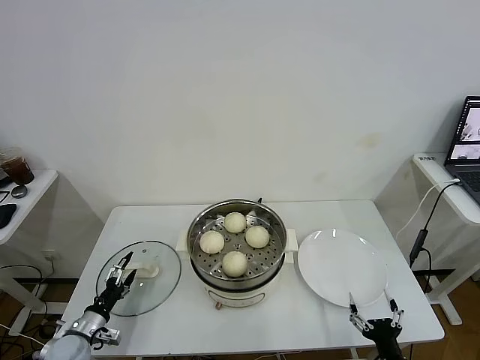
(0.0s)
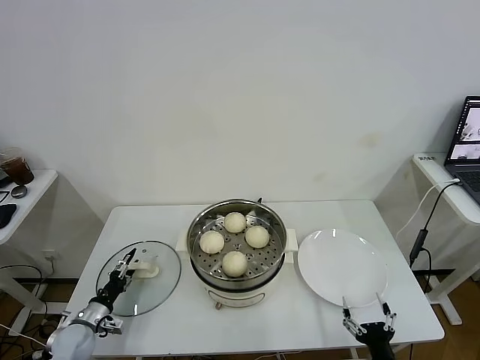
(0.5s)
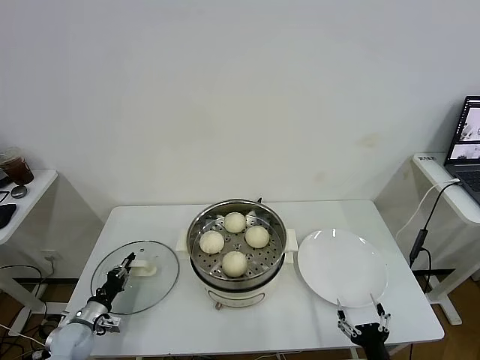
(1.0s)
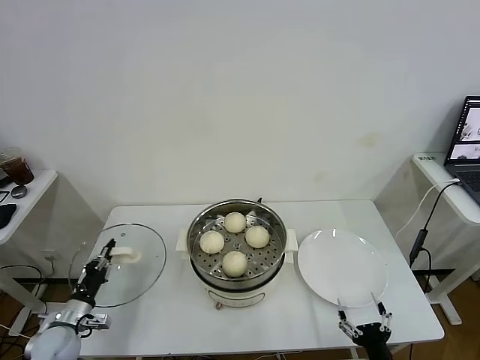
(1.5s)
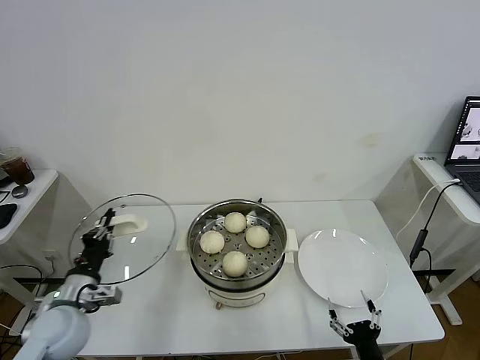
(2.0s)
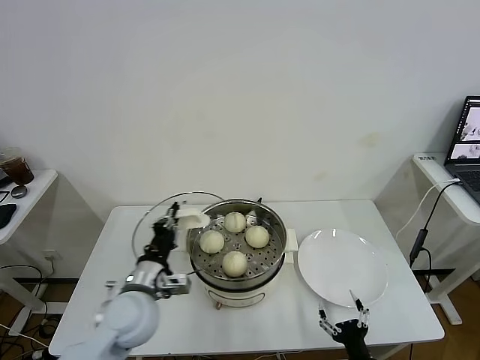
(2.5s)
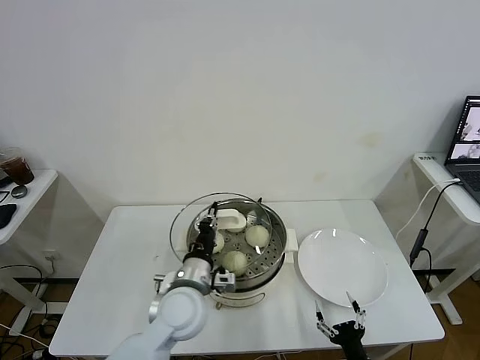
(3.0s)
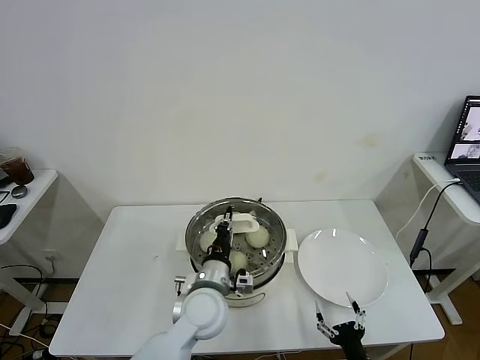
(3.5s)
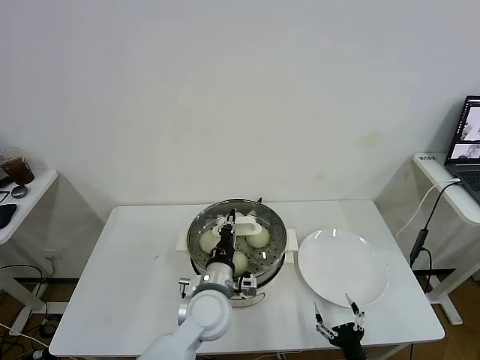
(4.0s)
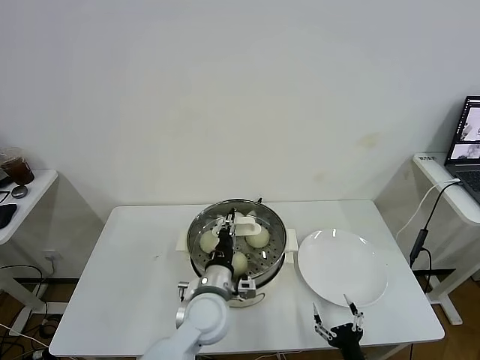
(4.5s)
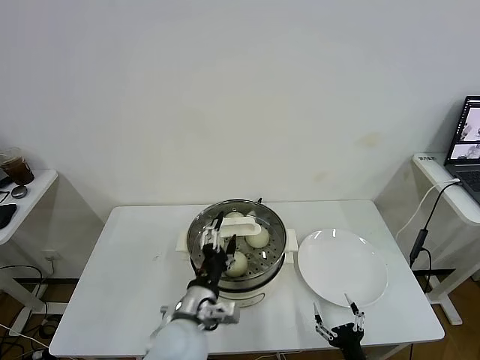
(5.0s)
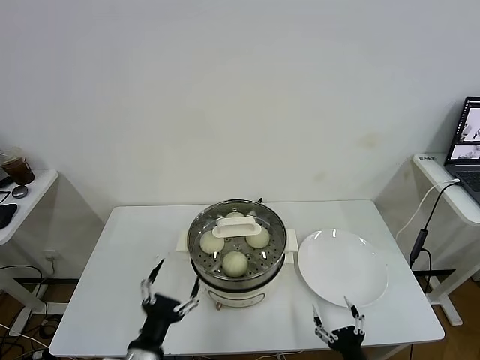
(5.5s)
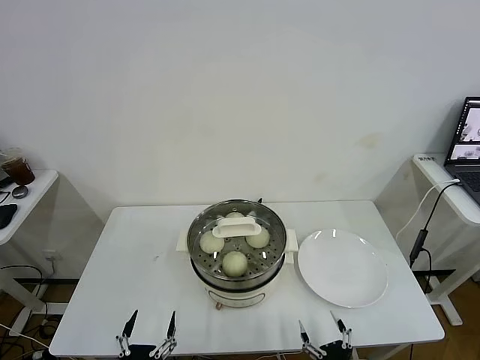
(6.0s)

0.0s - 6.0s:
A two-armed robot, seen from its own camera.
Task of the whole recording: take steamed baozi put them in steamer.
Step, 1.5s - 4.5s: Place the pot lid on the steamer with left gripper.
0.0s - 2.0s: The left gripper shifts approximately 15 cm upward, and closes its fingers.
2.0s - 4.0s: The left gripper goes roughly 30 cm to the right.
4.0s - 6.0s: The left gripper goes about 30 cm backward and to the left, and opens its fingers. The right gripper moves about 5 cm.

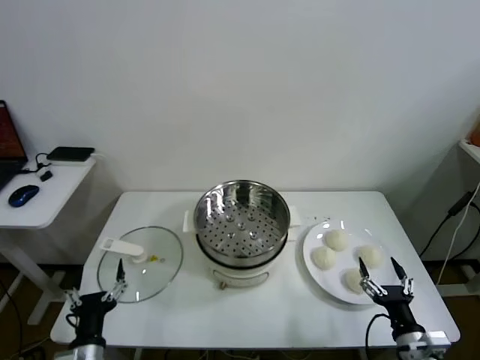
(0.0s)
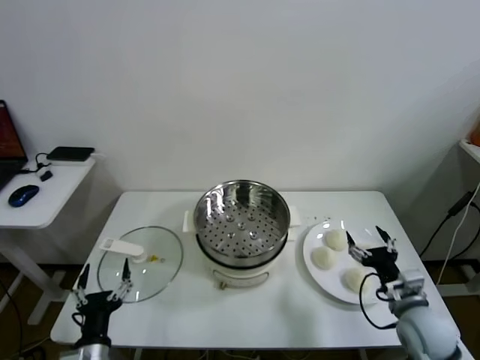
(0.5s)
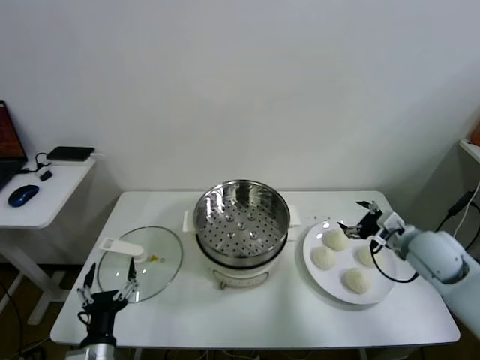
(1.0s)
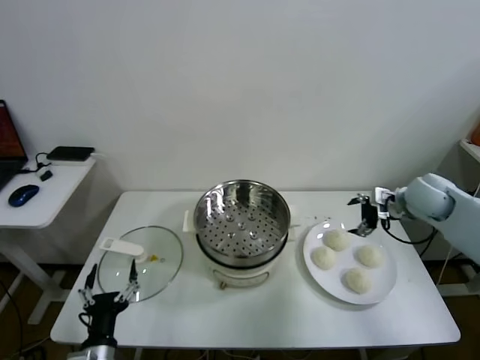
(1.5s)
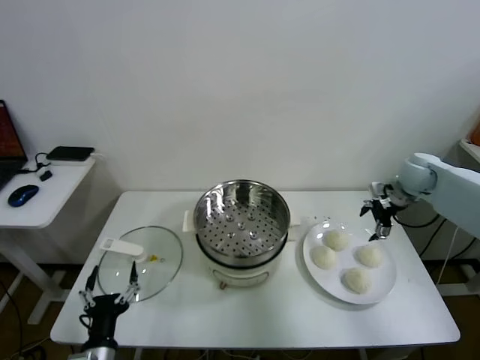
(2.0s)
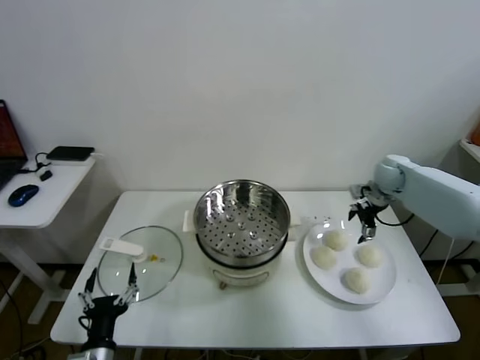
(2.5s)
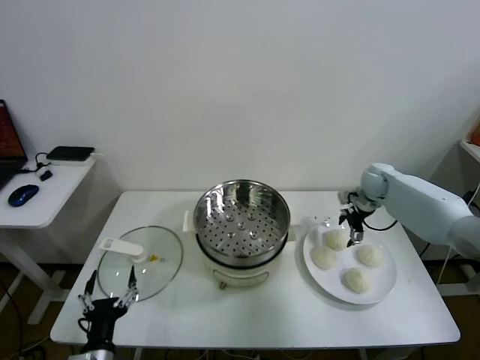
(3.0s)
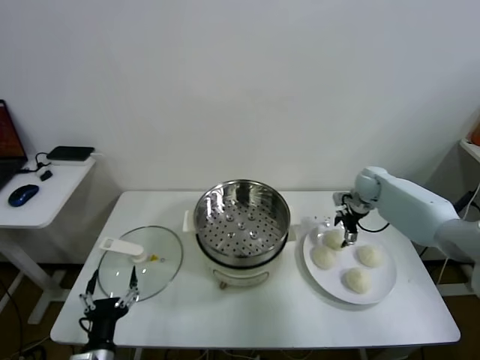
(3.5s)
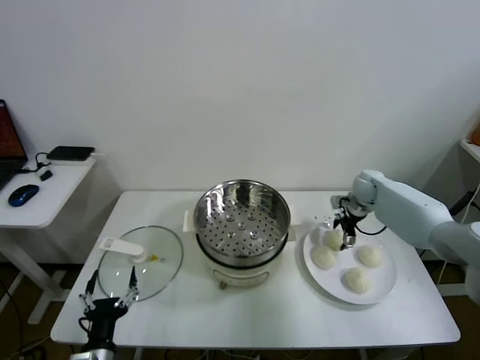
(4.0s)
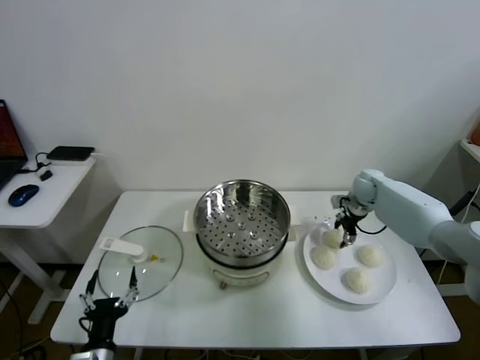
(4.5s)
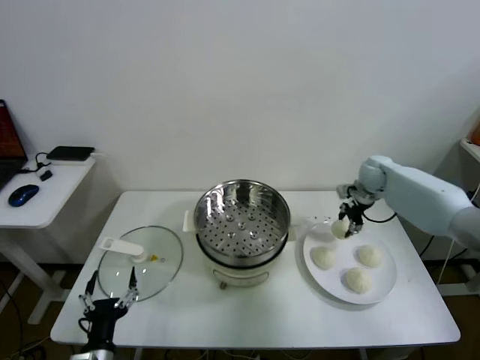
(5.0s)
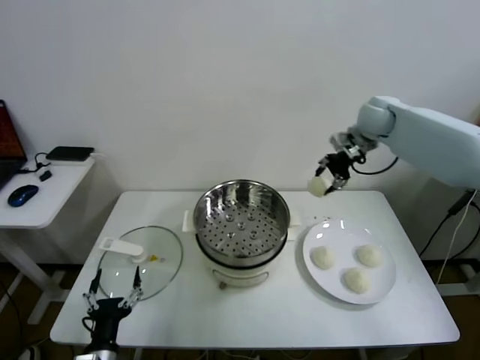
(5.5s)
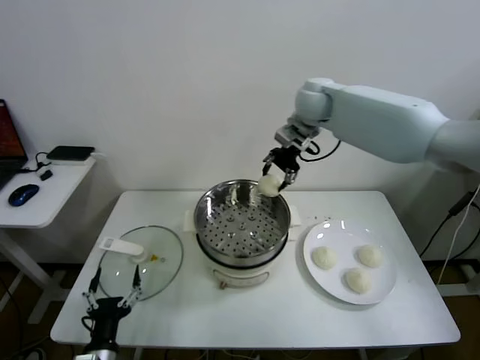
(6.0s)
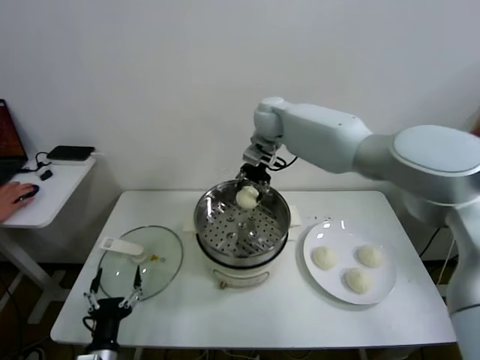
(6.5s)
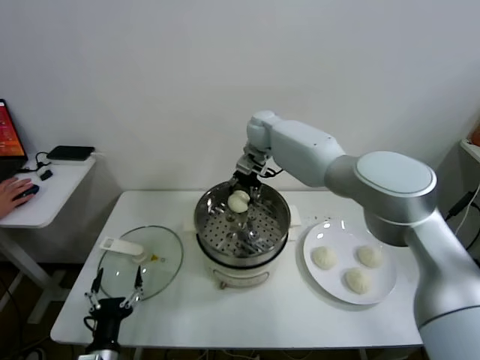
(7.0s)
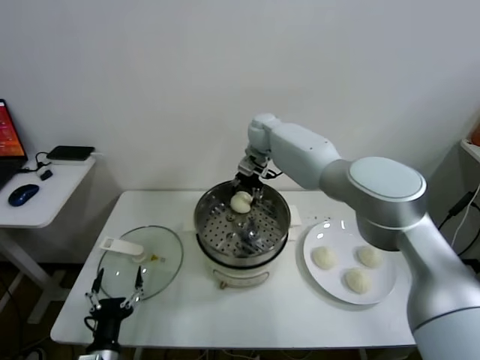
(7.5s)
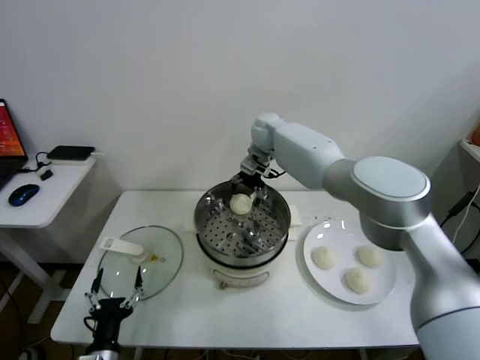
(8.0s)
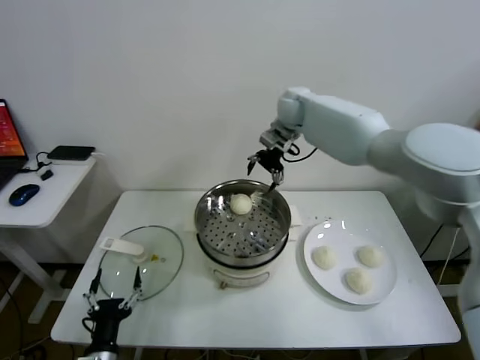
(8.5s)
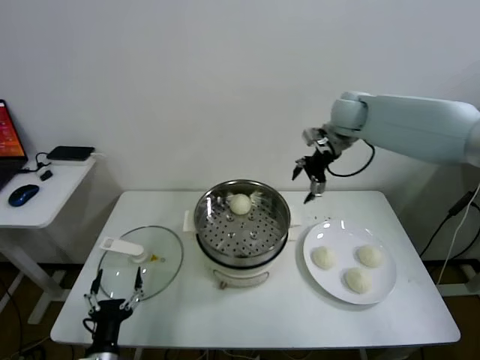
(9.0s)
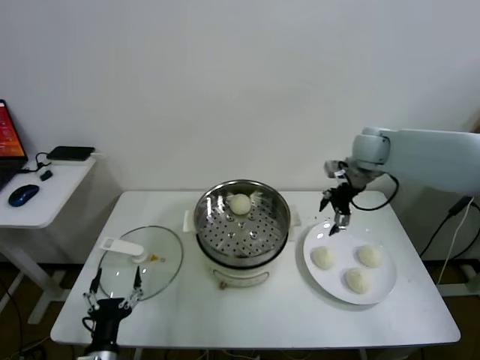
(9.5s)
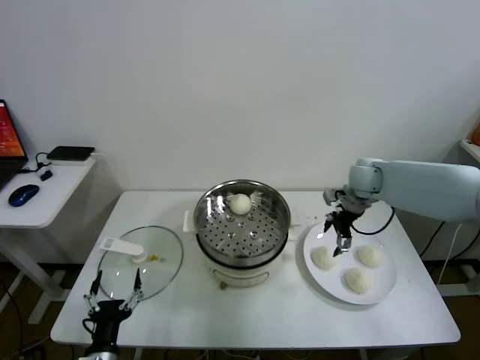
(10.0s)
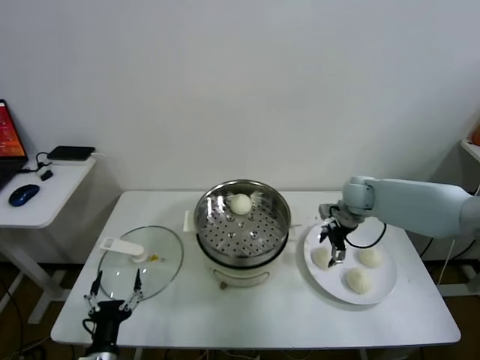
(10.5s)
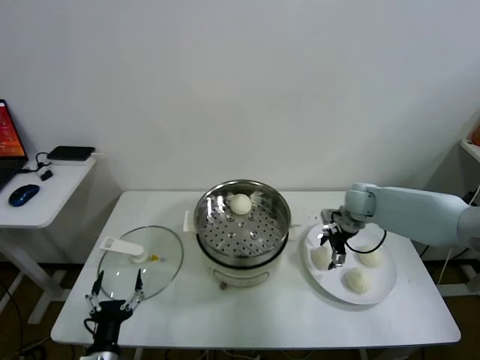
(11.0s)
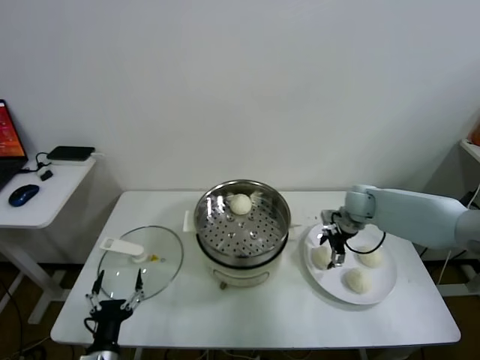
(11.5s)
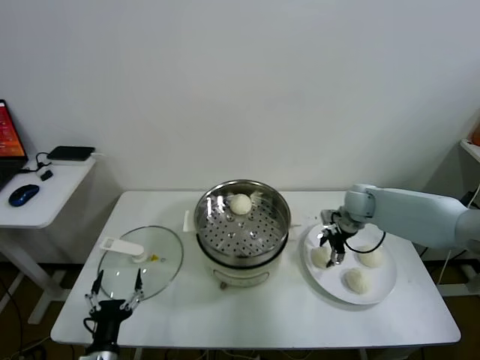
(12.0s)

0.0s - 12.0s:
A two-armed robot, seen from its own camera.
Task of the whole recording: take steamed baozi put them in steamer.
Step, 0.0s - 4.0s: Grasp the baozi in the plate with right gripper.
Step, 4.5s - 8.0s: Place the baozi on the steamer with right gripper.
2.0s - 4.0s: The right gripper is displaced downward and to the left by some 10 cm.
4.0s - 6.0s: The right gripper is displaced upward and to the left by some 35 cm, and closes.
6.0s - 8.0s: The right gripper heads downward and to the left, covering some 10 cm, and opens up.
8.0s - 10.0s: The right gripper shifts roughly 25 cm to the right and backward.
10.0s - 12.0s: The right gripper shifts some 5 cm downward, and closes up.

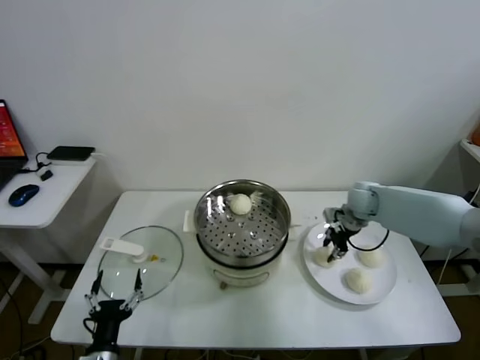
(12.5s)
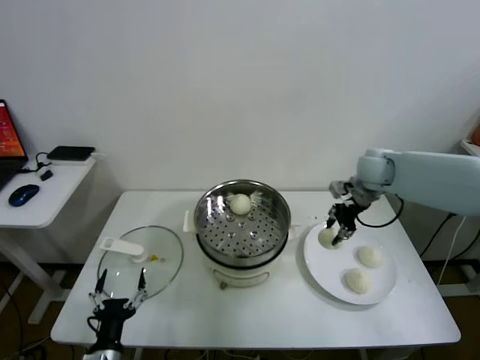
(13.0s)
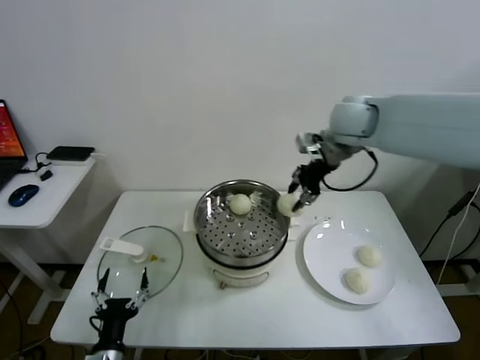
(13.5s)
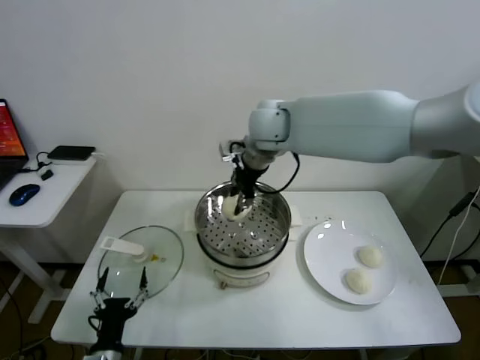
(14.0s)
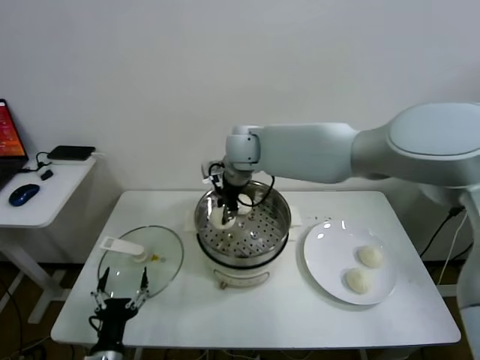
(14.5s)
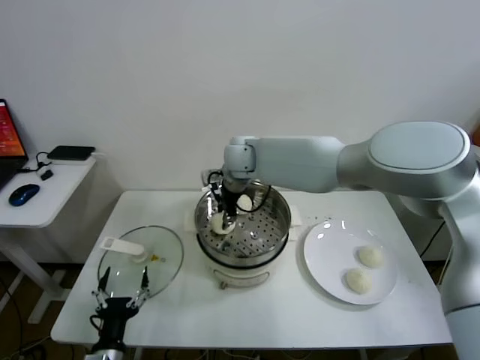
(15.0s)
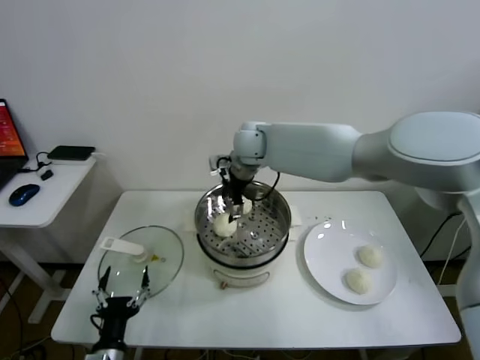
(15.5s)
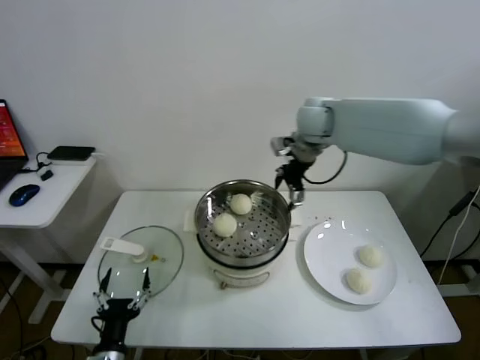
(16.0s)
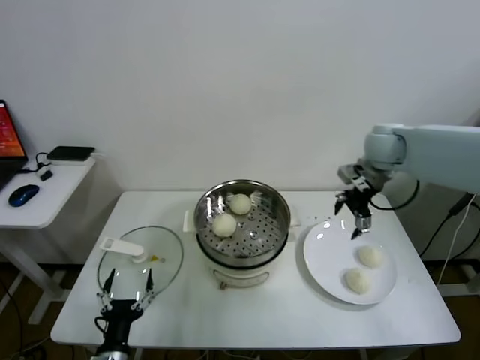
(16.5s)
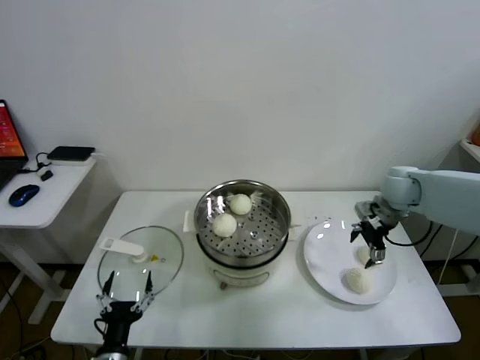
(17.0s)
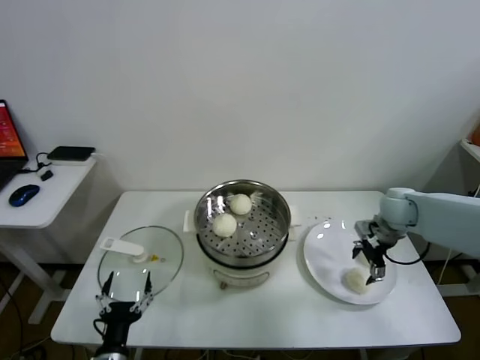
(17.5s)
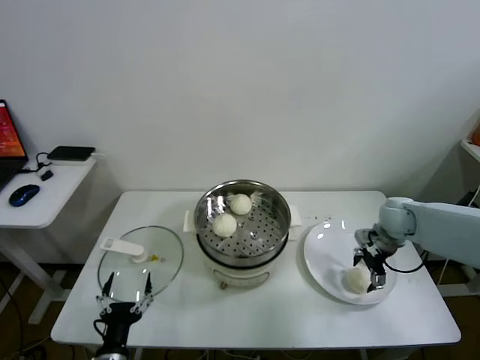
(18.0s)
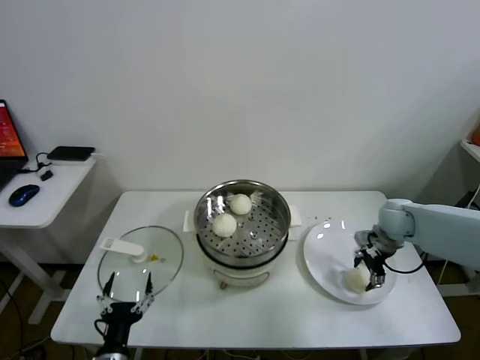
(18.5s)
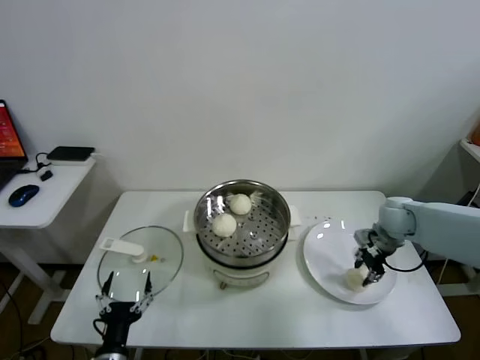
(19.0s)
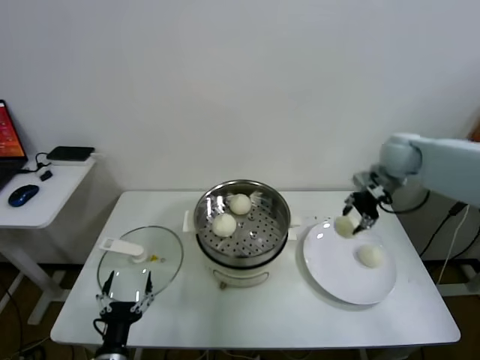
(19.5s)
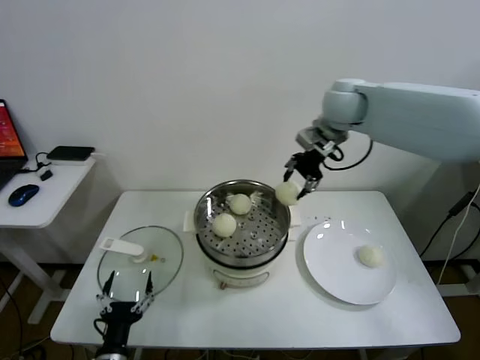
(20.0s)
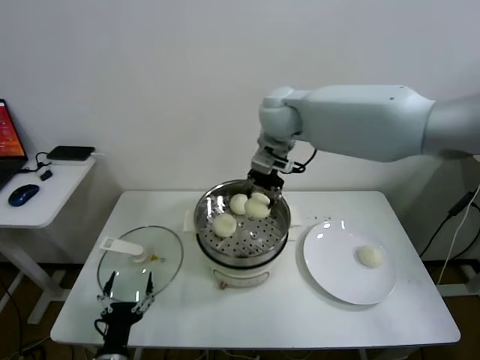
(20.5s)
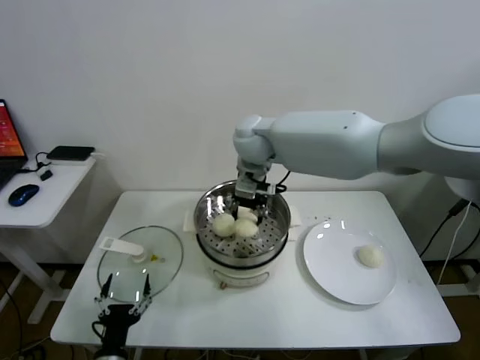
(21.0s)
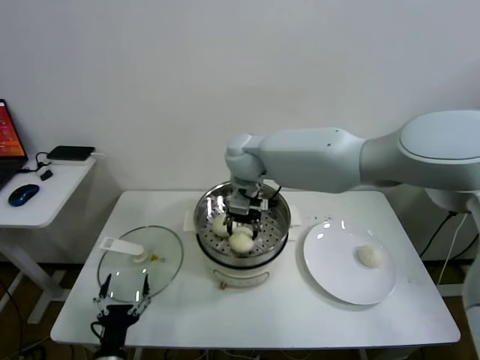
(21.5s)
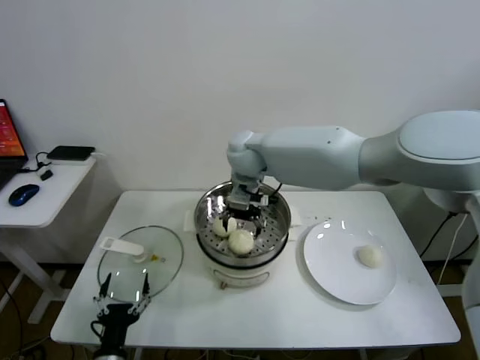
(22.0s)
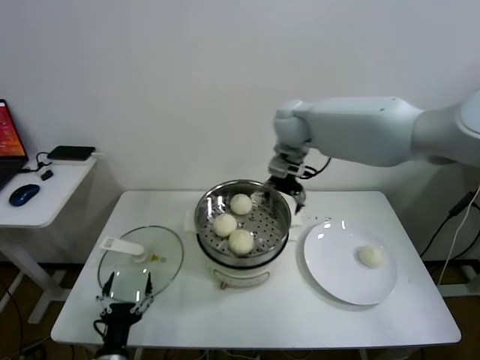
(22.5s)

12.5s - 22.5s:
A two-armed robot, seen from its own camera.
Task of the whole recording: take steamed baozi put them in steamer.
Step, 12.5s - 15.0s: Place the baozi on the steamer with right gripper.
Step, 15.5s - 18.5s: Grasp the baozi in the plate with right gripper.
Step, 19.0s - 22.0s: Place the baozi on the steamer with right gripper.
12.5s - 14.5s: The right gripper moves to the left and upward, about 35 cm.
14.5s - 16.5s: The right gripper travels to the right by about 30 cm, and opens.
16.5s - 18.5s: The right gripper travels downward by some 15 cm, and closes.
18.5s - 20.5s: The right gripper shifts some 40 cm to the left and upward.
20.5s - 22.5s: The right gripper travels to the right by roughly 5 cm, and opens its fingers.
